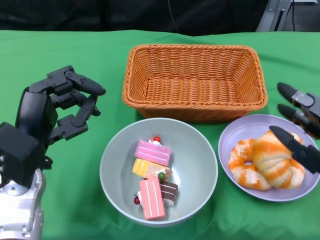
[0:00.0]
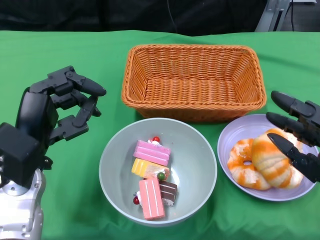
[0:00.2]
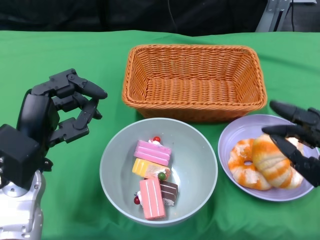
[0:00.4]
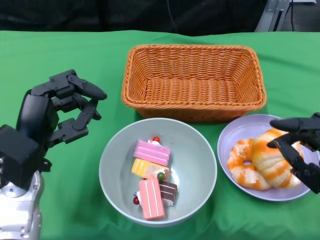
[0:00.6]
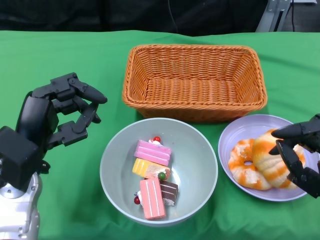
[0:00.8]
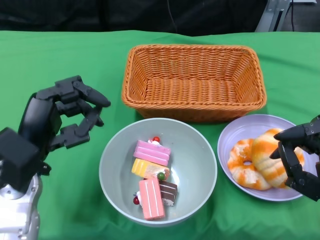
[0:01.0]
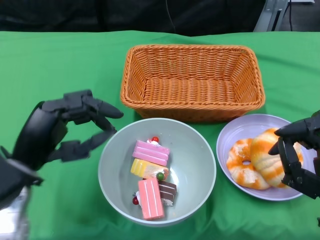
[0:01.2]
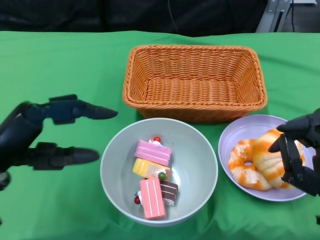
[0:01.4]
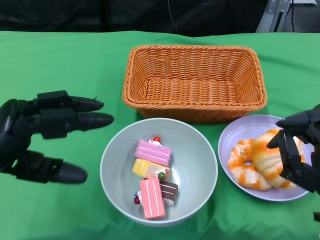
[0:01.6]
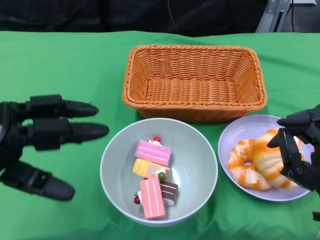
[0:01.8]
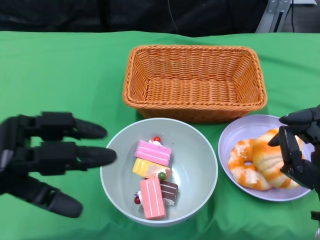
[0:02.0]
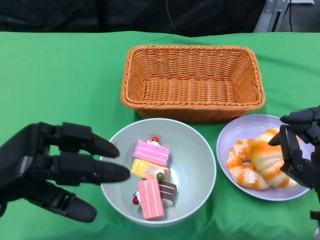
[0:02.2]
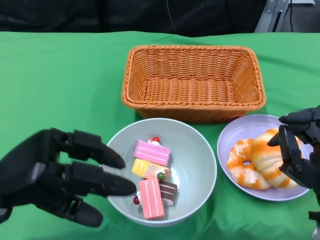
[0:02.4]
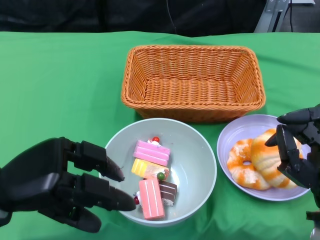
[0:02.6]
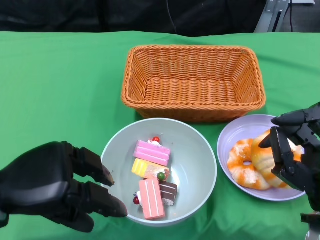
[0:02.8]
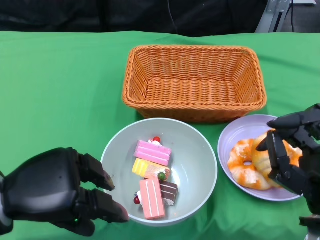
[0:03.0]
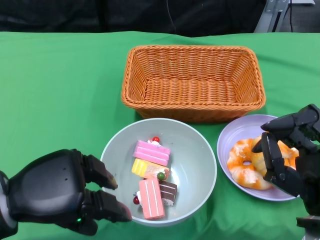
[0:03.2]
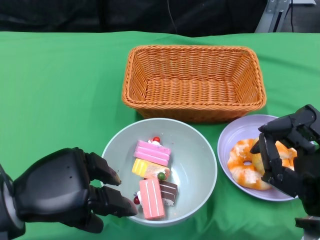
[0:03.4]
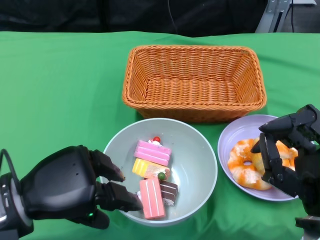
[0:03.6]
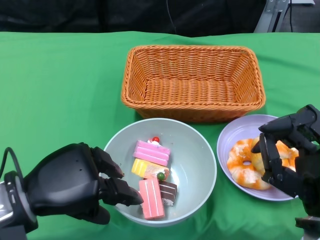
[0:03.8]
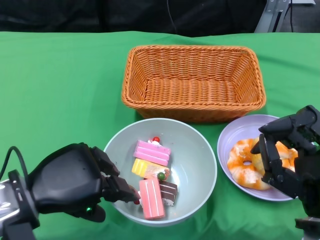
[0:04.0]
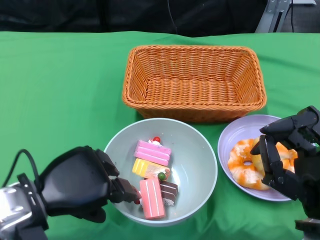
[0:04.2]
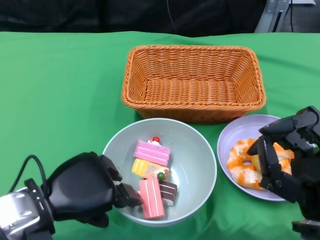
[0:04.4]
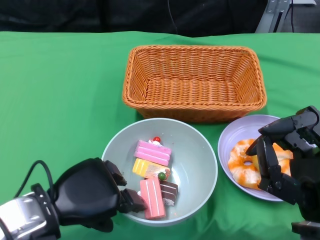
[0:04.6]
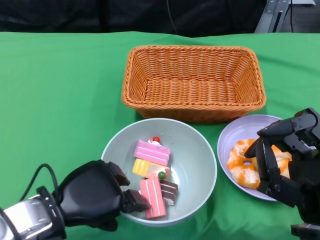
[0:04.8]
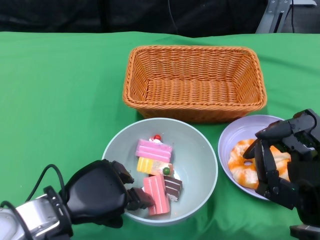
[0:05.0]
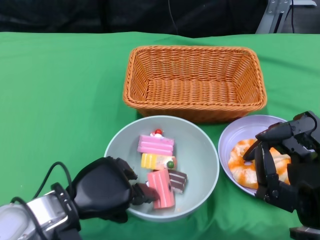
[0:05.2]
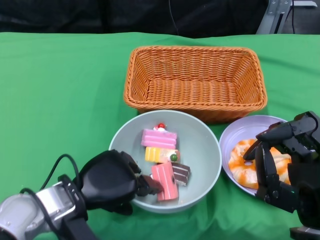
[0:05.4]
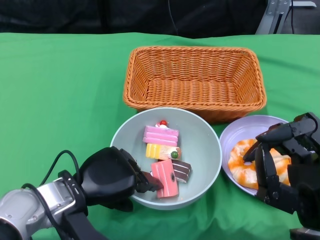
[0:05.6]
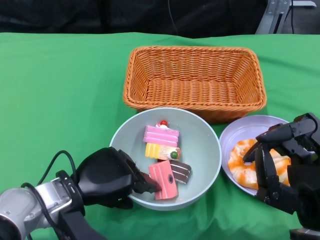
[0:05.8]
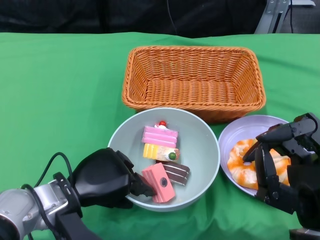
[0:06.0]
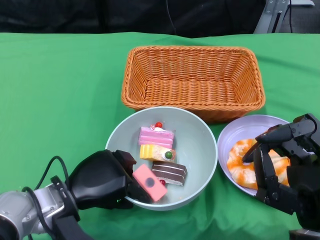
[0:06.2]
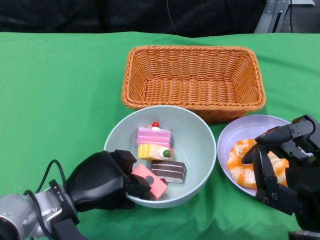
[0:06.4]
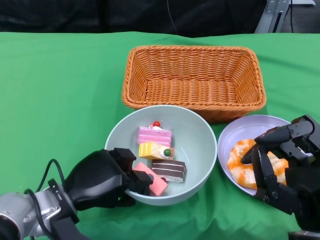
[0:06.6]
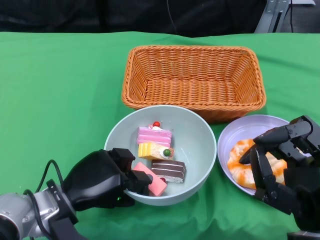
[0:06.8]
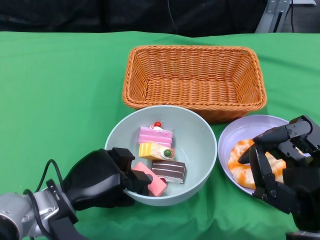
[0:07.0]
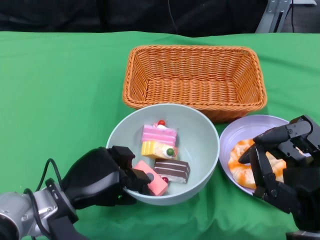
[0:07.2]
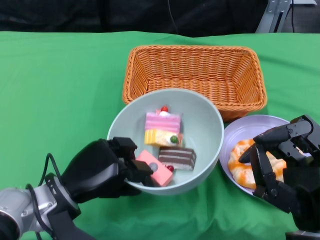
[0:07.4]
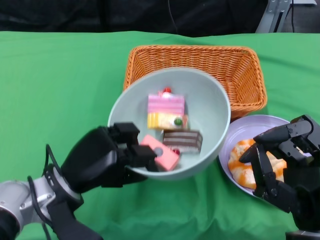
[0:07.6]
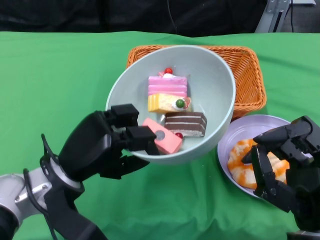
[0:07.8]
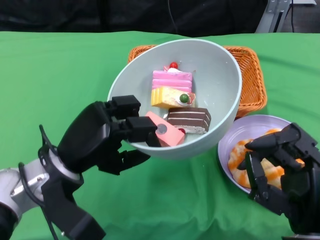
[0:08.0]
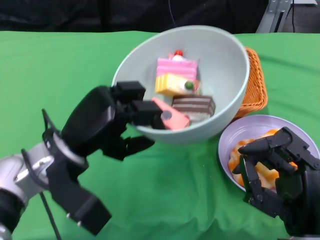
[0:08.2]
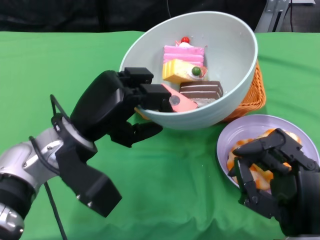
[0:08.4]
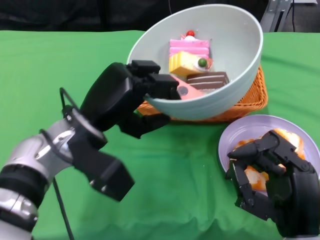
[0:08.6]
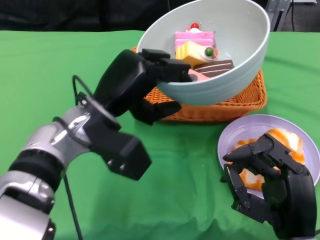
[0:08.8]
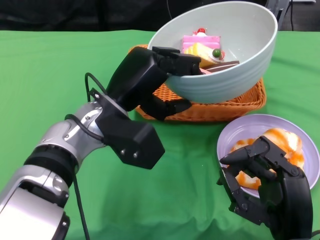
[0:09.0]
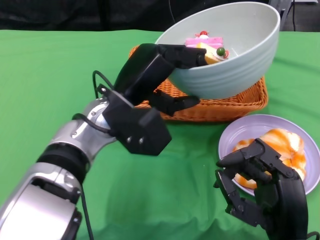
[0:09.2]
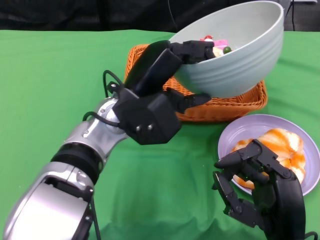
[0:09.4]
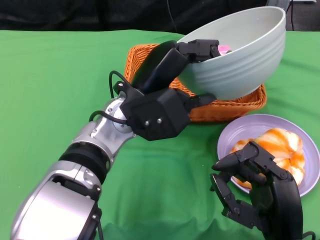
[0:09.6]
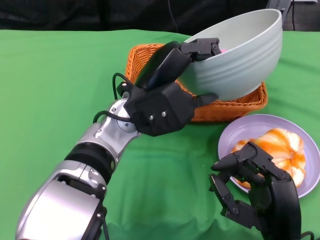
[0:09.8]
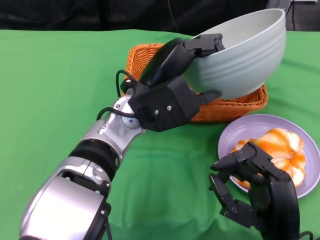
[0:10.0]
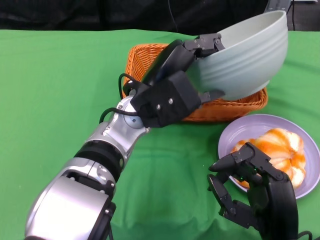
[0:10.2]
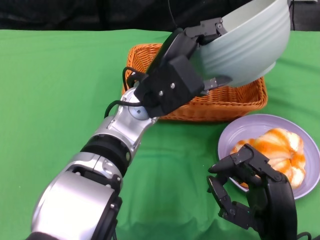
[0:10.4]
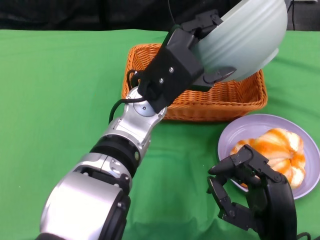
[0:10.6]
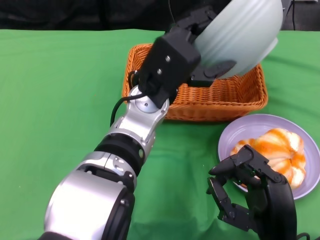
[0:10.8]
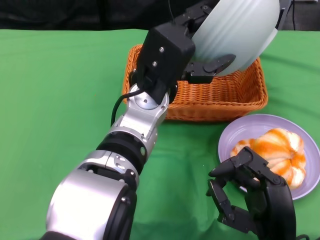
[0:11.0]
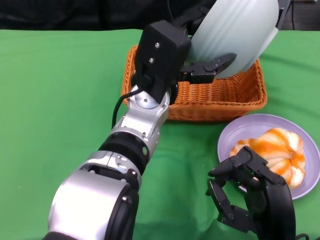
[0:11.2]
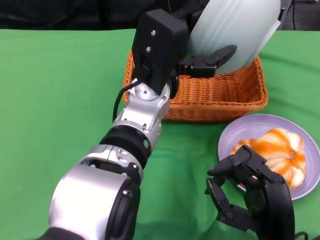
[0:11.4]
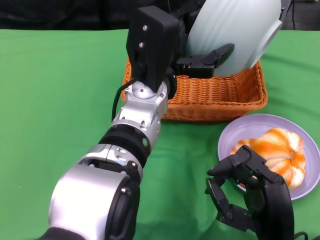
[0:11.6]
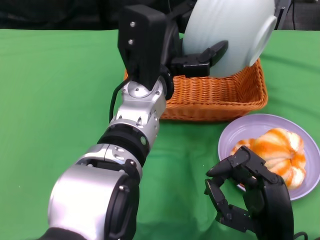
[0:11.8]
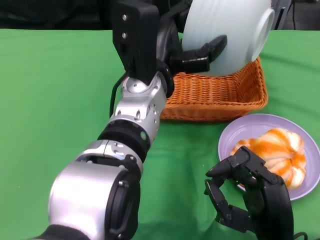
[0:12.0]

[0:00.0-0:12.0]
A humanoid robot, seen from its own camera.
Step, 0:00.2 to 0:08.8: Grasp the bowl with the left gripper.
0:00.0 to 0:01.6: The left hand heads to the left, covering about 5 cm.
0:04.4 to 0:06.0: The left hand travels downward by roughly 5 cm.
0:07.6 to 0:09.0: The left hand shifts about 15 cm upward, to the right and forward.
0:09.0 to 0:10.4: The left hand travels to the right by about 5 cm.

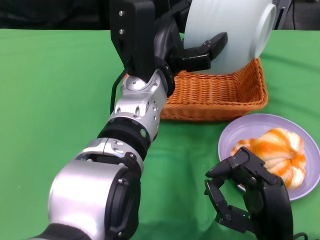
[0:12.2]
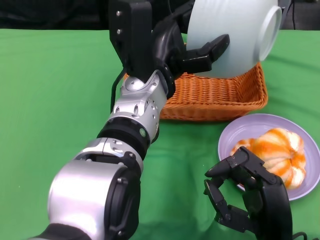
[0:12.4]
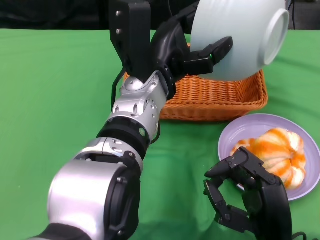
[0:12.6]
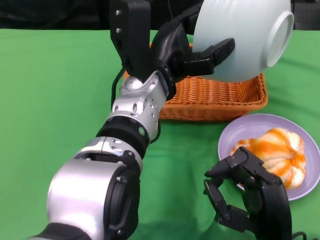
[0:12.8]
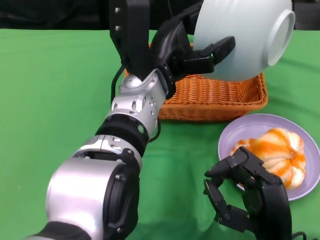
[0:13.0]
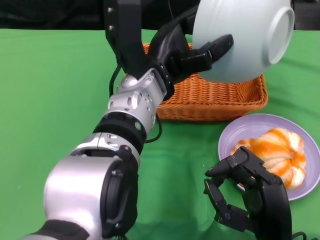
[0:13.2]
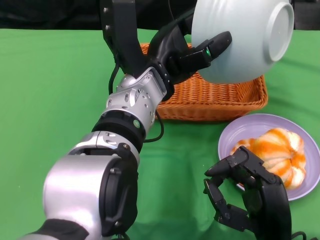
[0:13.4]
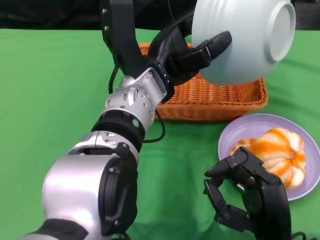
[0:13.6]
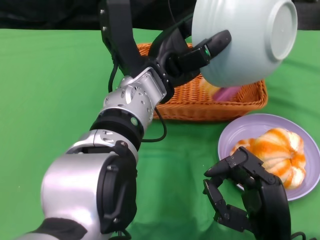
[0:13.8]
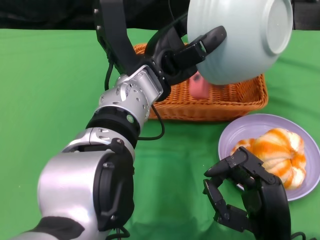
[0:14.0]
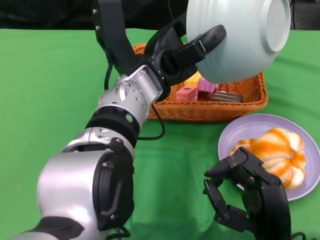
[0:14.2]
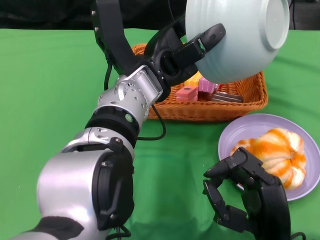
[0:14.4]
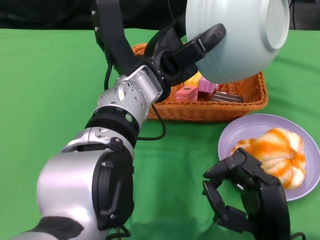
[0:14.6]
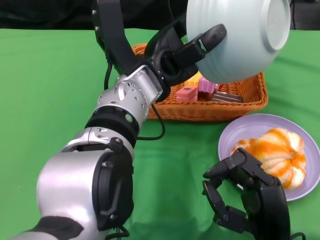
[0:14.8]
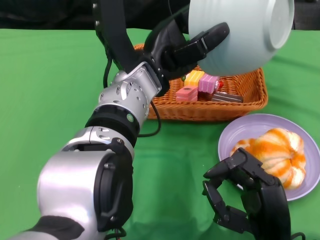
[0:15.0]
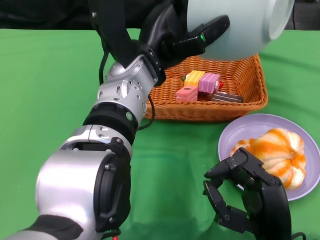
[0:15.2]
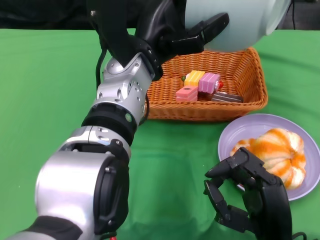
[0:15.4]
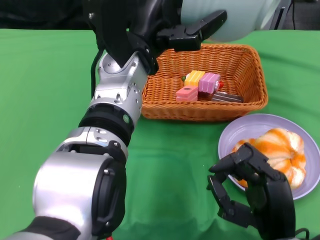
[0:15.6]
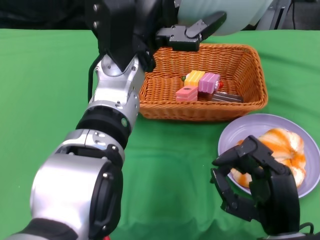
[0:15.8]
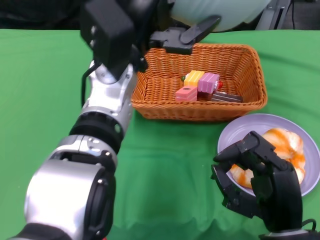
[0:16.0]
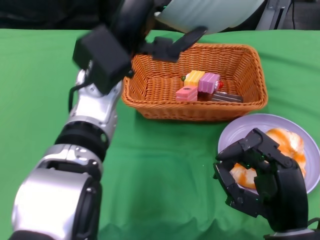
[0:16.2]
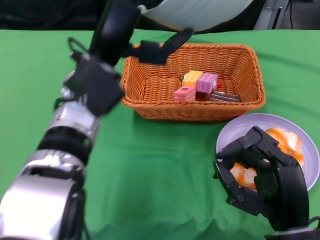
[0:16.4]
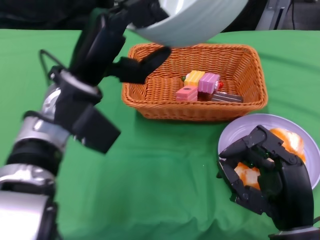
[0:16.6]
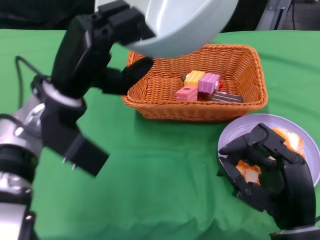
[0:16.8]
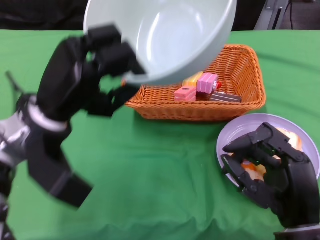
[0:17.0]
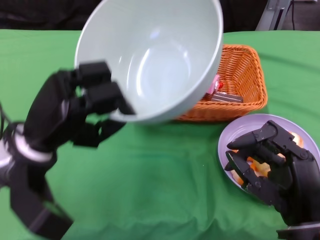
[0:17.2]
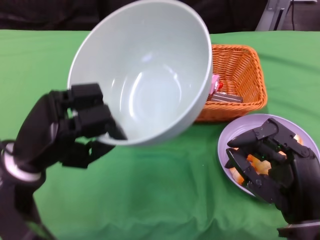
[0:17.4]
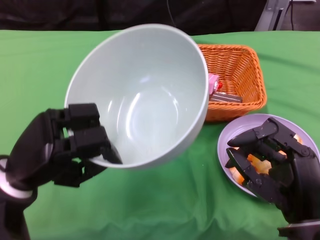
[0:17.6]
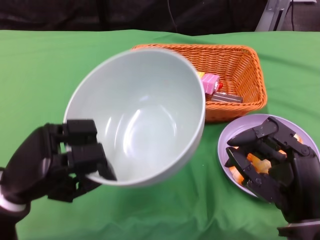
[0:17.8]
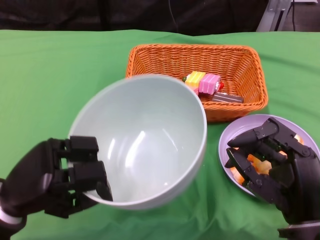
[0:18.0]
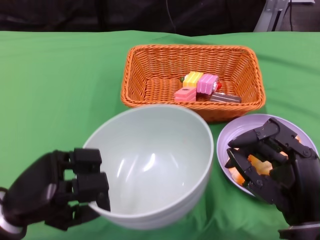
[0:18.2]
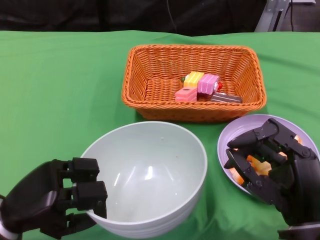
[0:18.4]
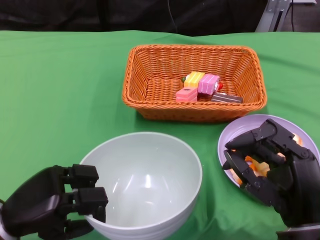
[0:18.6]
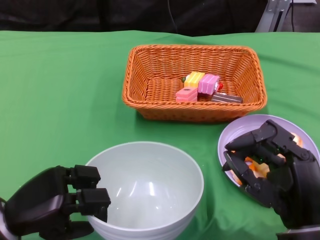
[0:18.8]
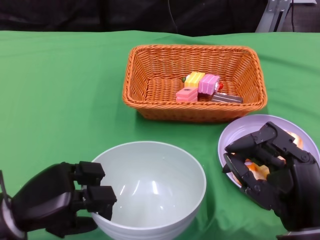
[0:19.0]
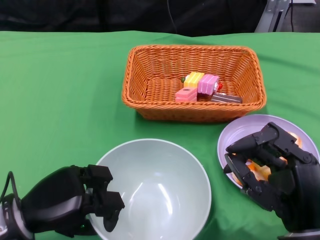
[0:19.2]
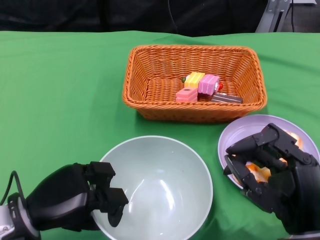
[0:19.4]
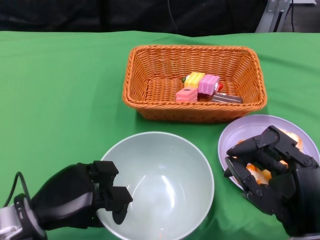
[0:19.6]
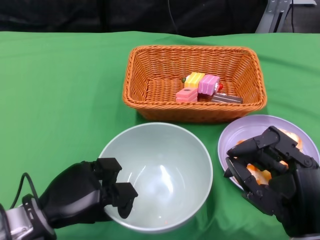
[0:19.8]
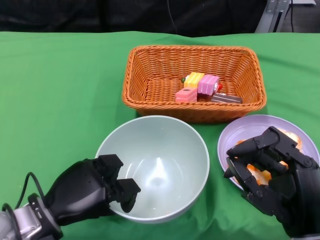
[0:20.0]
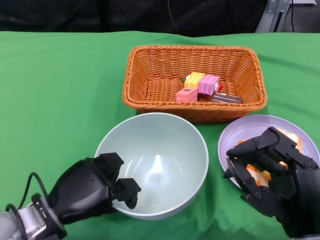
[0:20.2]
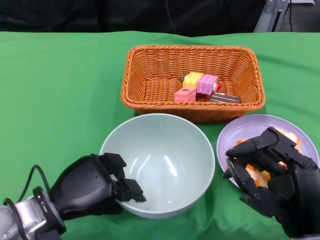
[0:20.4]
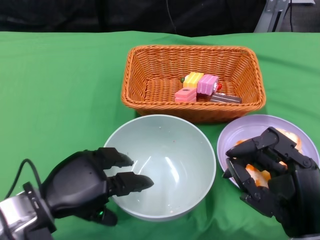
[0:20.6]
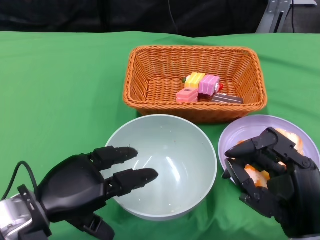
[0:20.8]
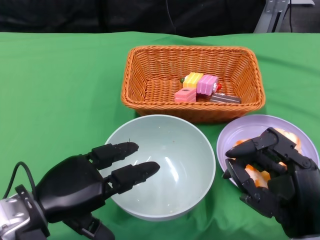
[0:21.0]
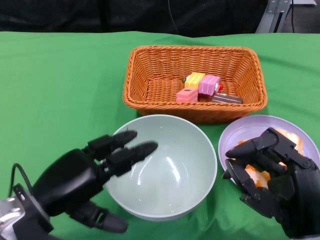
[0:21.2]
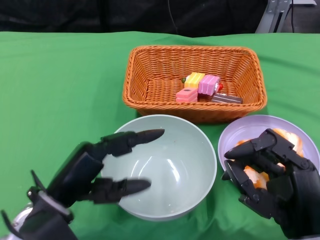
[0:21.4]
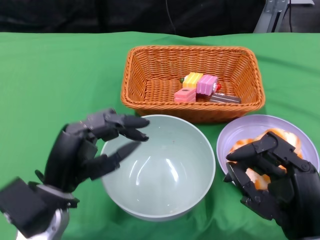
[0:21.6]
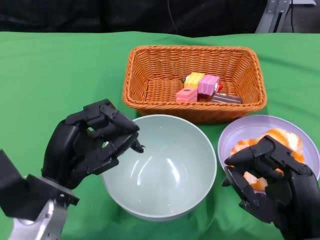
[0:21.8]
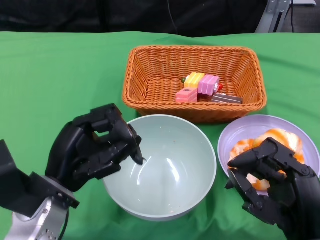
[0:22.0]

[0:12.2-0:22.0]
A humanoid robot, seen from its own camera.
Step, 0:12.2 to 0:15.2: Pour the cake into the basket with the left gripper.
Step, 0:15.4 to 0:21.2: Place the bowl on the table with the left gripper.
0:13.6 to 0:15.0: The hands move only a little.
0:15.0 to 0:16.4: The left hand goes approximately 5 cm to the left.
0:16.4 to 0:17.8: The left hand moves to the left, downward and backward, approximately 20 cm.

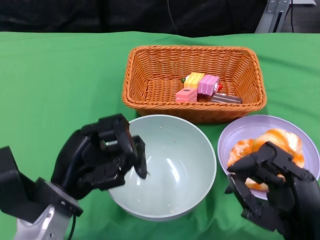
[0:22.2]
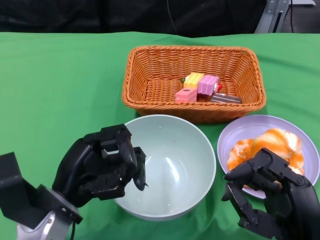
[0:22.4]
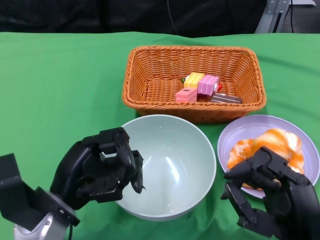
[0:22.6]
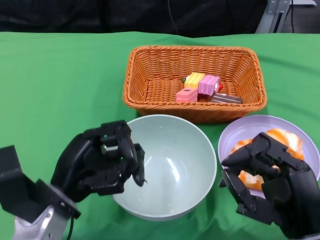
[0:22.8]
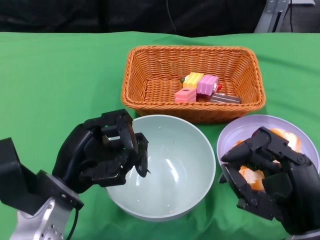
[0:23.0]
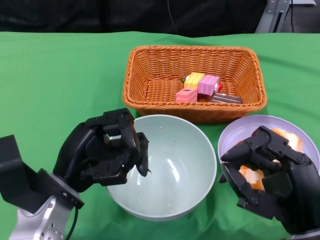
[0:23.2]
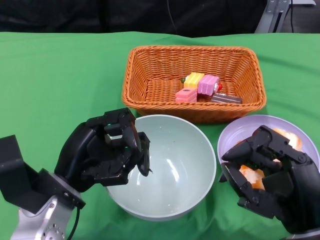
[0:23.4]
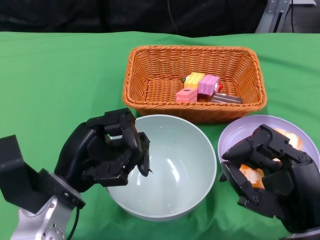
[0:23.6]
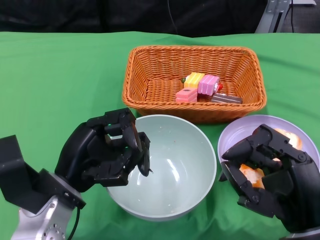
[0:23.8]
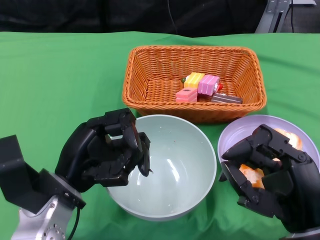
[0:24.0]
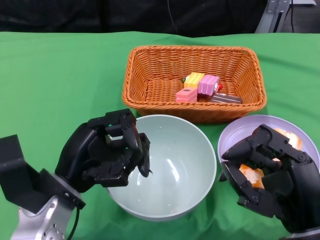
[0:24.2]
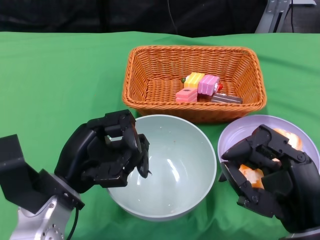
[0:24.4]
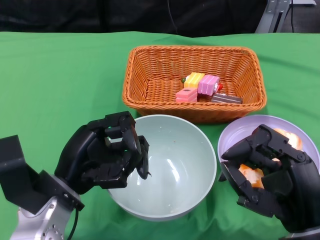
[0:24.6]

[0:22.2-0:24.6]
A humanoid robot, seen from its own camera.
0:22.2 to 0:23.4: The hands stay close to where they were, moving slightly.
0:23.4 to 0:24.6: Both hands stay about where they are.
